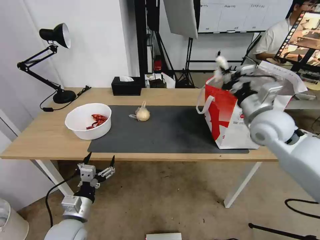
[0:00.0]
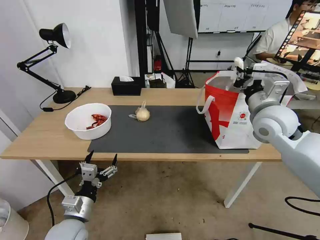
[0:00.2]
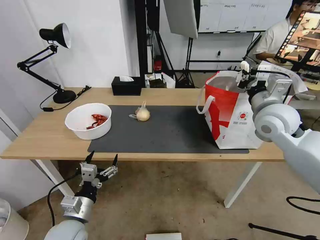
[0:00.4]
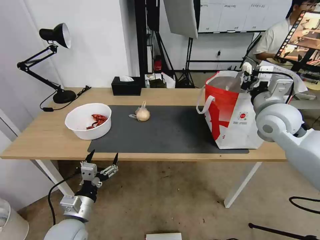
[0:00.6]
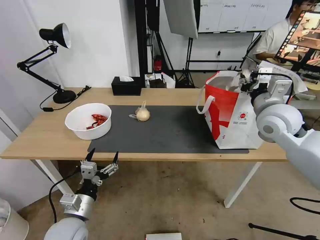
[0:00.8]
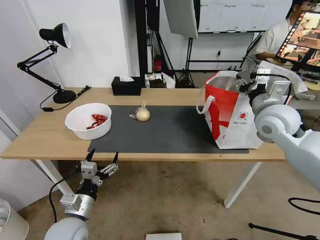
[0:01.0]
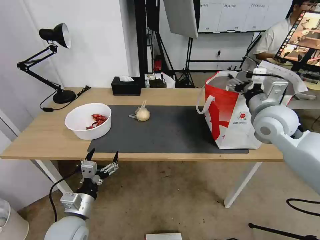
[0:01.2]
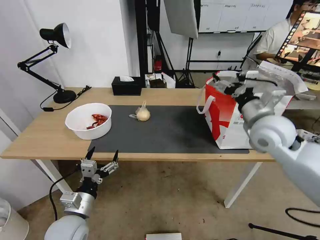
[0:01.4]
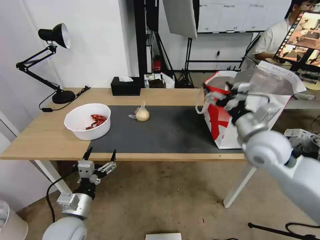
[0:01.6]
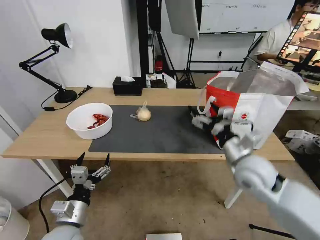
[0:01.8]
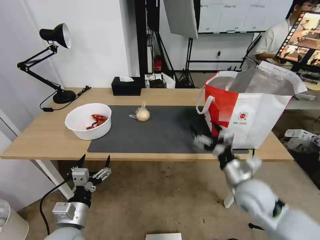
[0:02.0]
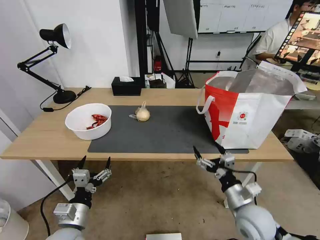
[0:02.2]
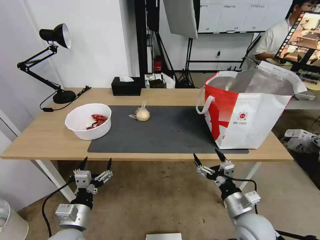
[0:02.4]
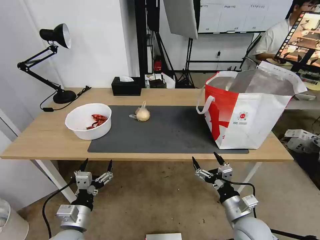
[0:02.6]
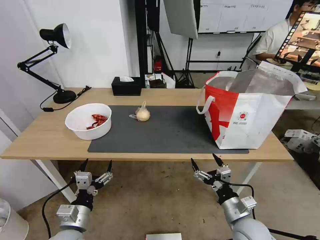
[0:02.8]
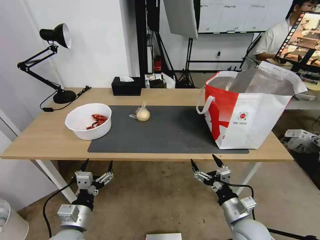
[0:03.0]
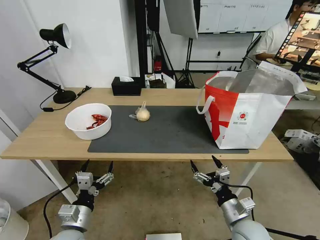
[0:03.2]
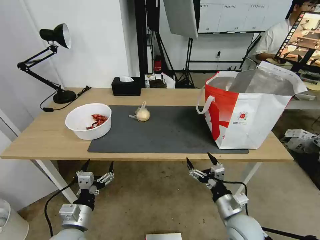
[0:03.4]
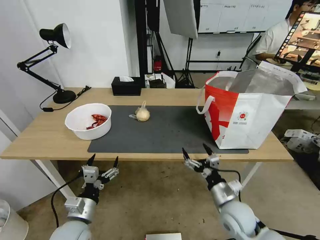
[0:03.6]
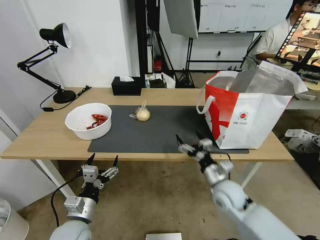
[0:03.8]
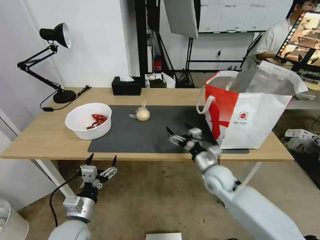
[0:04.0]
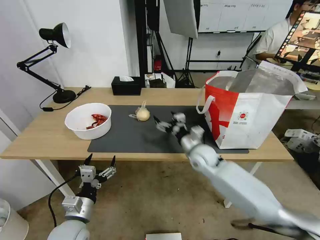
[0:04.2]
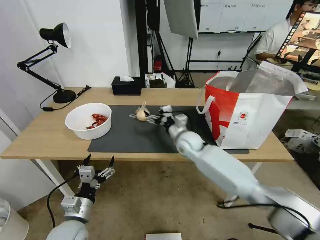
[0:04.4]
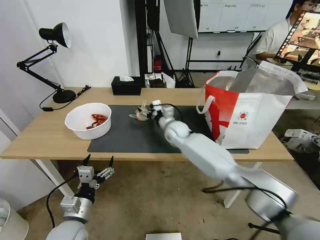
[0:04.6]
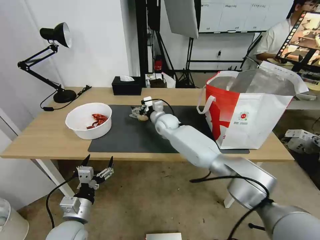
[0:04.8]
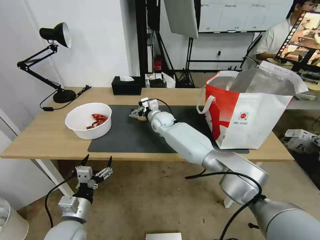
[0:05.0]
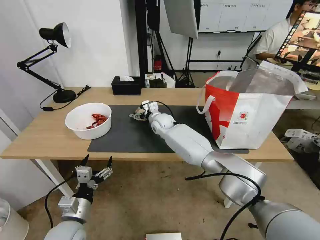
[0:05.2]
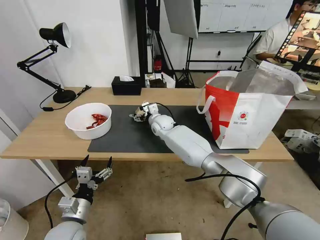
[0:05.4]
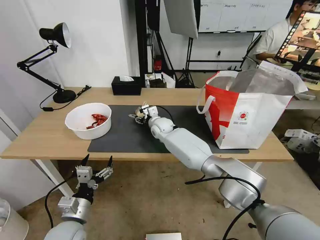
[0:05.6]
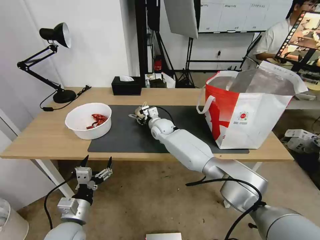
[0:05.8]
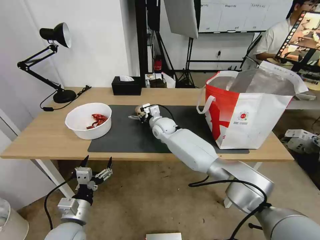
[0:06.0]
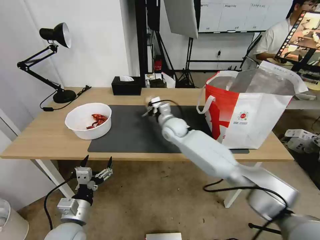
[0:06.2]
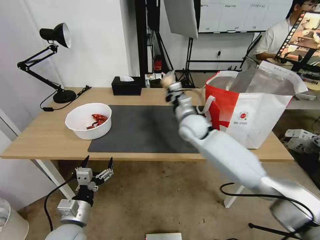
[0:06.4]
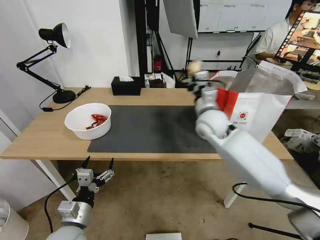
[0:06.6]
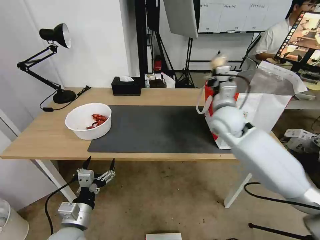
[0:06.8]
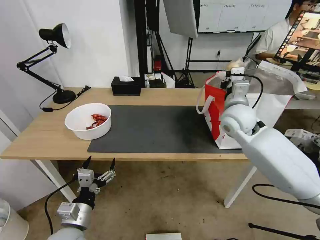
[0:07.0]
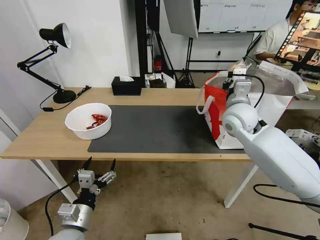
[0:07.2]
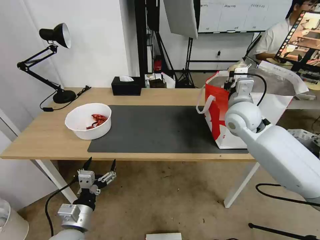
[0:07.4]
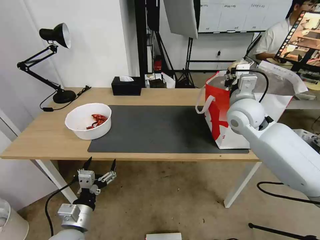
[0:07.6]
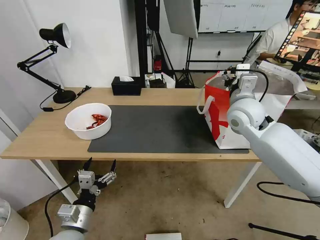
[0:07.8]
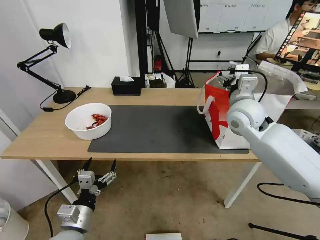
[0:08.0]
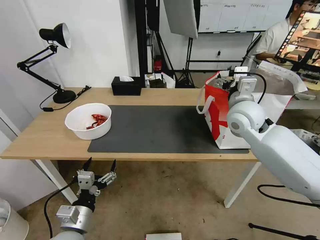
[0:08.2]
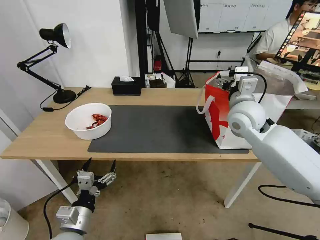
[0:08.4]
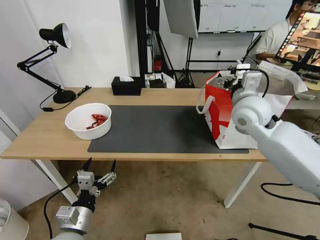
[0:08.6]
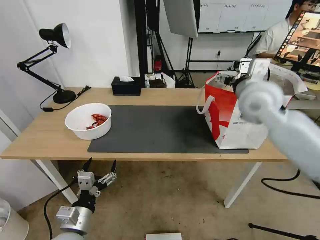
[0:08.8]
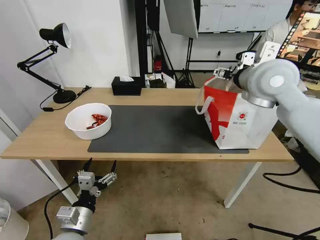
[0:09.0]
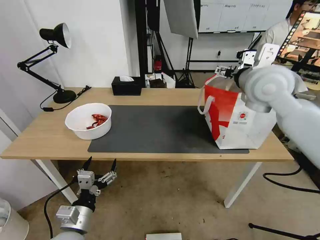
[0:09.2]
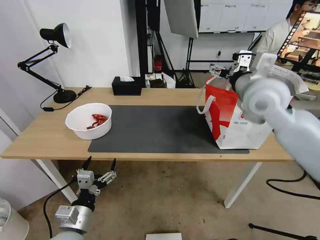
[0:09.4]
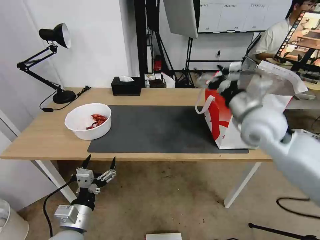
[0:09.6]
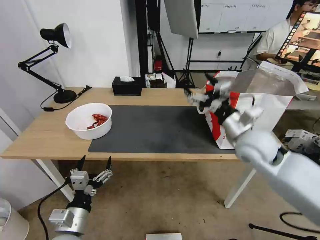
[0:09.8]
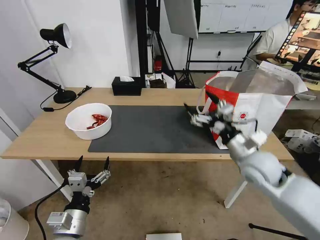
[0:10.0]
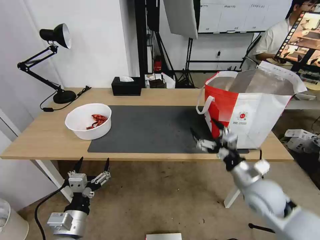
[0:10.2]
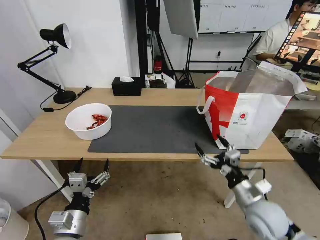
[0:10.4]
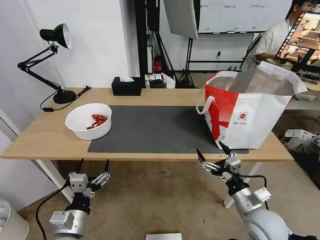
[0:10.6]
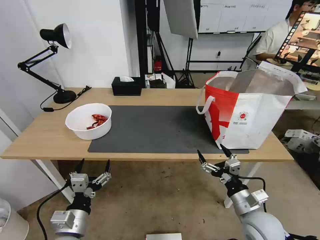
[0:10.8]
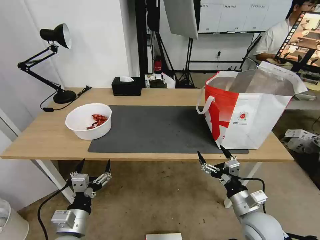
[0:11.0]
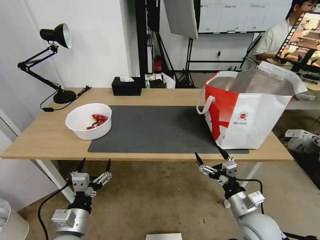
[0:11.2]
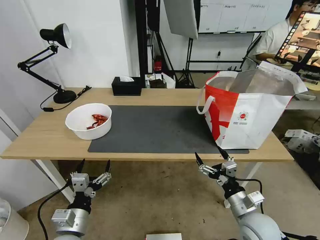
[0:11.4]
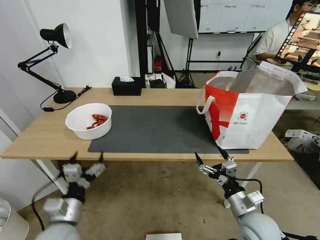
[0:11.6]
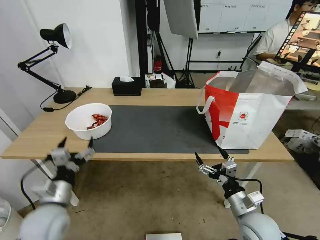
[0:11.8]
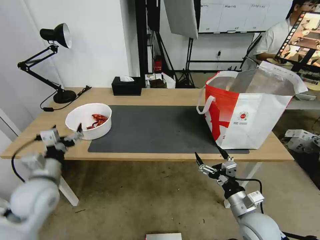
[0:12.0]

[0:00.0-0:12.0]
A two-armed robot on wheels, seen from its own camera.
Task of the whole recording: Pick up the trash from the table and place it into the takeout bag.
0:00.0 to 0:01.6: The right gripper is displaced backward by approximately 5 cm, and opens.
0:01.6 to 0:03.0: The right gripper is displaced downward and backward by approximately 25 cm.
0:03.0 to 0:04.4: The right gripper goes approximately 30 cm forward and to the left.
0:04.4 to 0:06.0: The right gripper moves to the left and forward, approximately 10 cm, and closes up.
0:06.0 to 0:07.6: The right gripper goes some 30 cm to the right, upward and backward.
0:07.6 to 0:09.0: The right gripper heads upward, covering some 10 cm, and opens.
0:09.0 to 0:10.4: The right gripper moves downward and backward, roughly 35 cm.
0:10.4 to 0:12.0: The left gripper moves forward, upward and to the left, some 20 cm.

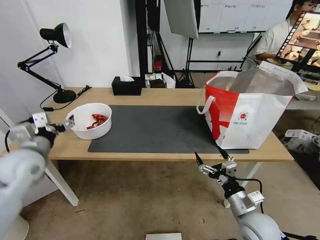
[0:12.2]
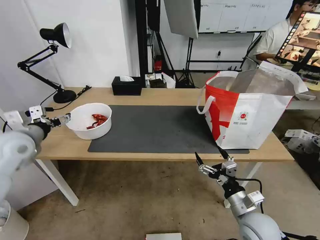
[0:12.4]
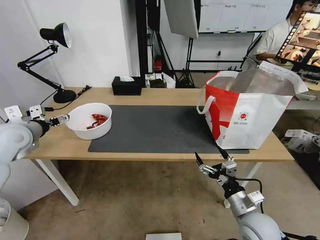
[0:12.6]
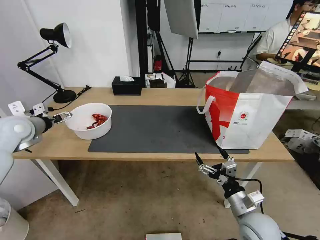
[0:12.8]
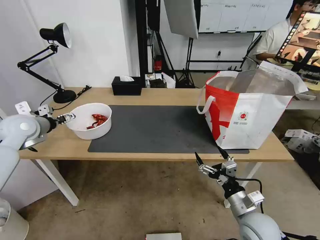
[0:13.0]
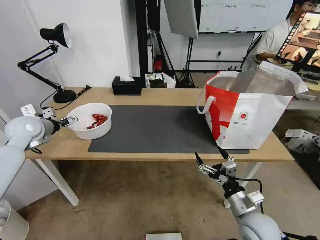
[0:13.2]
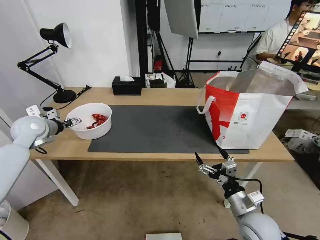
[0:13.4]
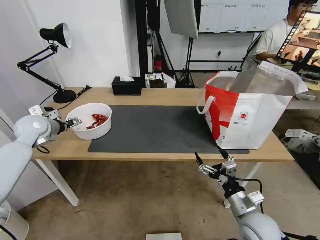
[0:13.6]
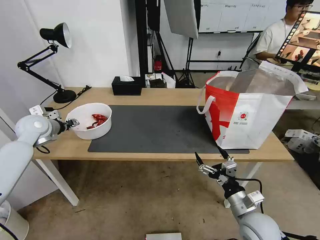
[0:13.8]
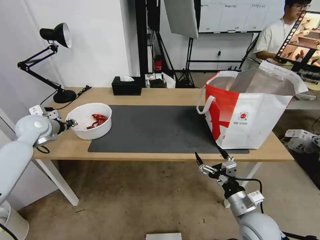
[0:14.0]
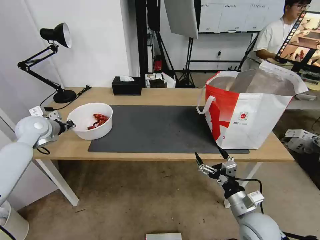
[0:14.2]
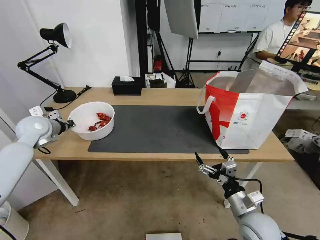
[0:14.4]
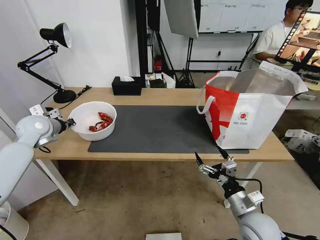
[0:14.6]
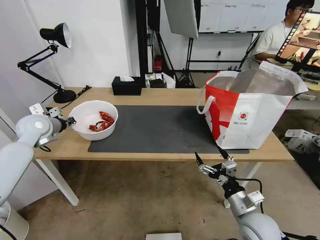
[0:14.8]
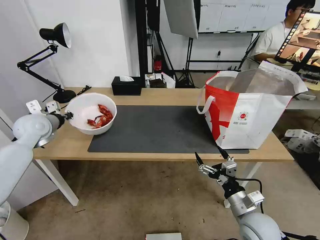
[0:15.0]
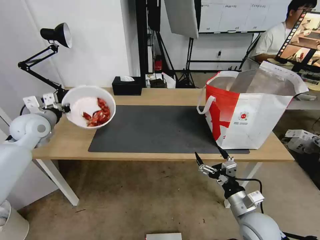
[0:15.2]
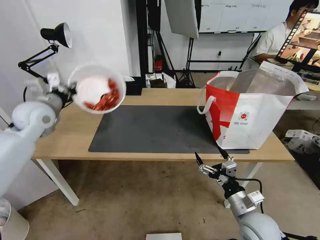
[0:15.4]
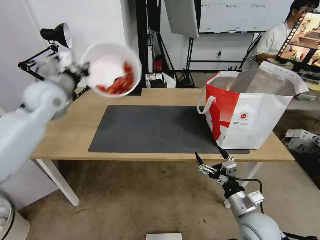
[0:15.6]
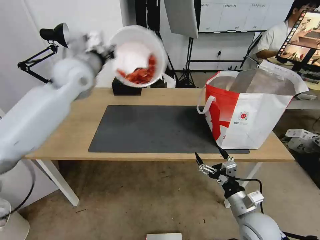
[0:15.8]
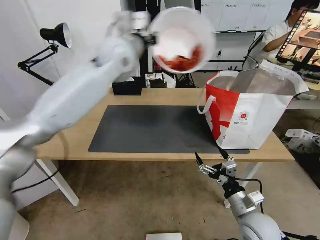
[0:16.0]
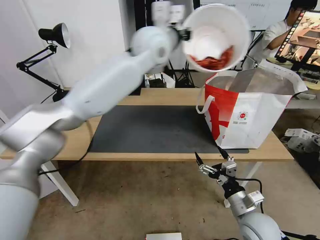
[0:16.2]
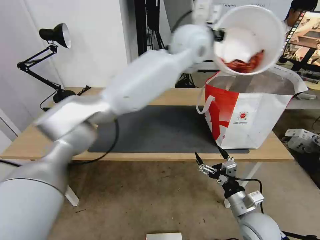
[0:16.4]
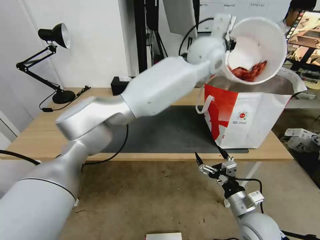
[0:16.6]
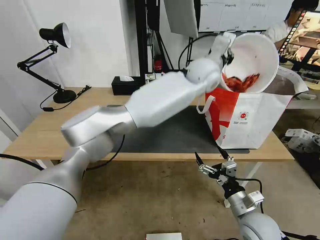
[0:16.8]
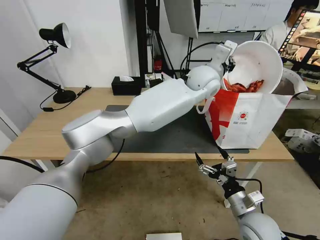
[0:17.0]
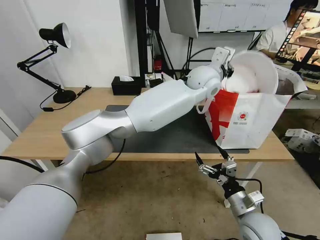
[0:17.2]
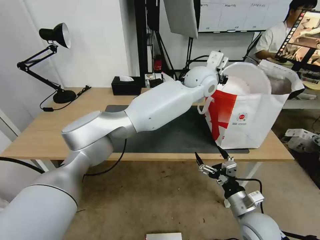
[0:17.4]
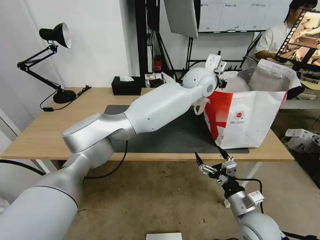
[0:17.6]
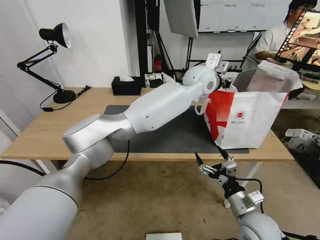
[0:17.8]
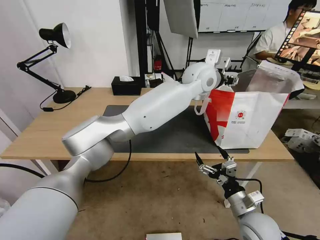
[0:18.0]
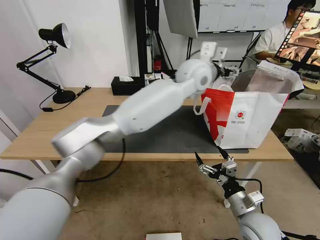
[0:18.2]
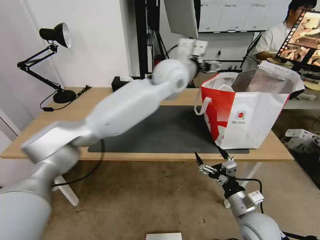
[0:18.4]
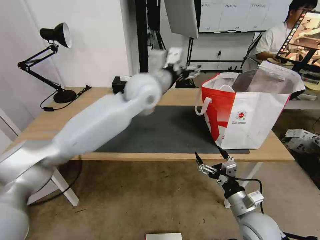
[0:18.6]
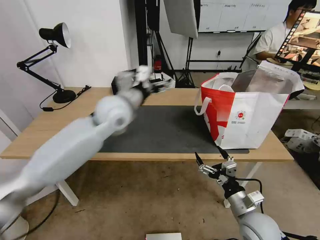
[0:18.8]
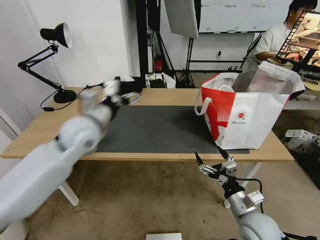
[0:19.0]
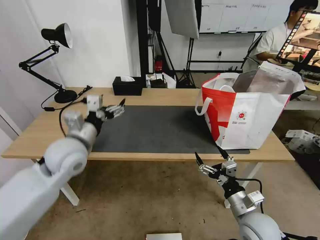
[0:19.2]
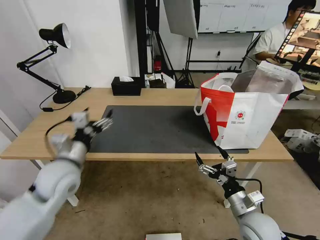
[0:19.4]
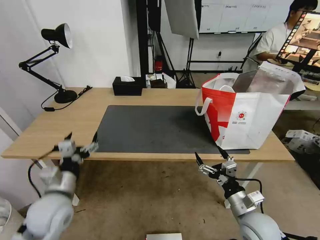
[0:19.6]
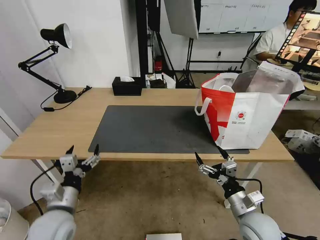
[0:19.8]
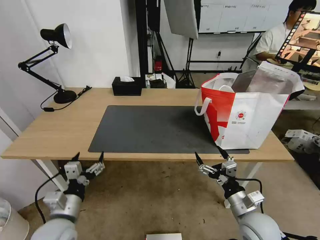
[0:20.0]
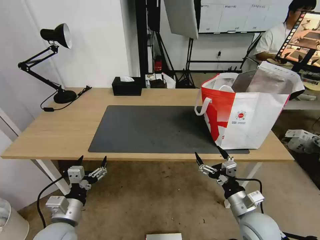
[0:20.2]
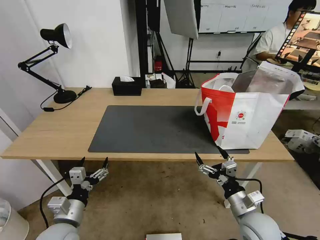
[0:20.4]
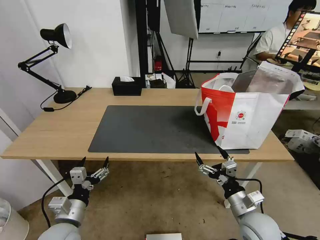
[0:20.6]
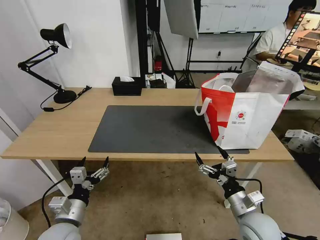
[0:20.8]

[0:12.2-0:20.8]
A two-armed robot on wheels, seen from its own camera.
Task of the whole recording: Pick up the trash from the table and place it into the takeout bag.
0:12.2 to 0:13.6: The left gripper heads forward, covering about 15 cm.
0:13.6 to 0:15.0: The left gripper closes its fingers.
0:15.0 to 0:16.6: The left gripper shifts some 50 cm to the right.
0:16.6 to 0:18.0: The left gripper heads downward, covering approximately 5 cm, and opens up.
0:18.0 to 0:19.4: The left gripper goes about 50 cm to the left, backward and downward.
0:19.4 to 0:20.8: The left gripper shifts some 20 cm downward and backward.
